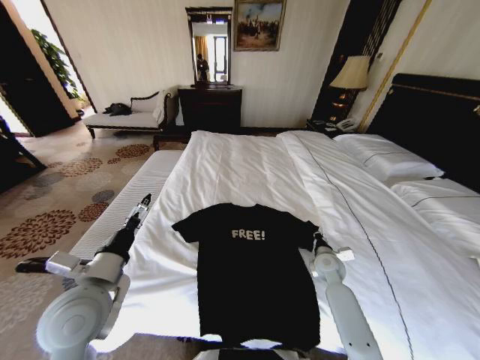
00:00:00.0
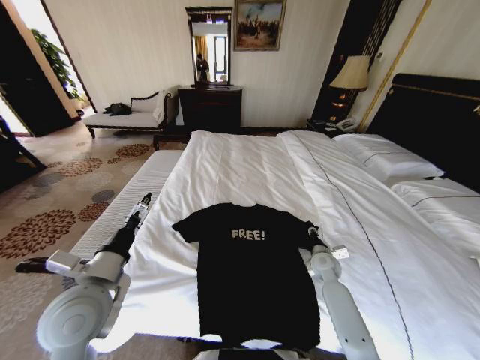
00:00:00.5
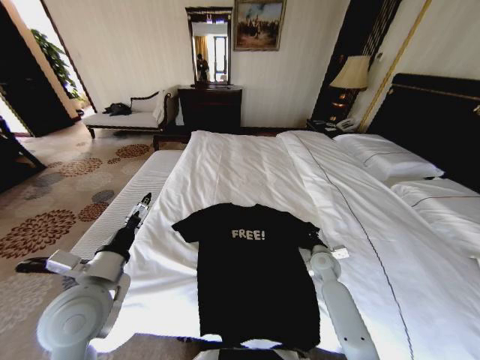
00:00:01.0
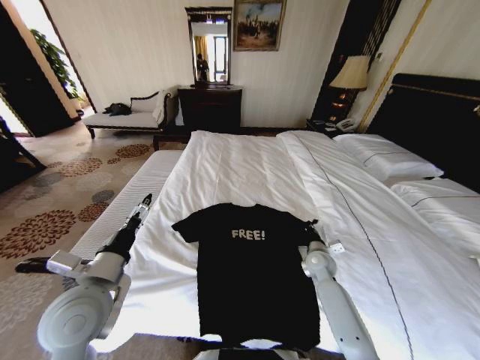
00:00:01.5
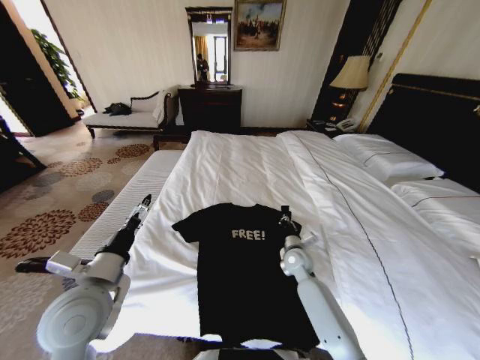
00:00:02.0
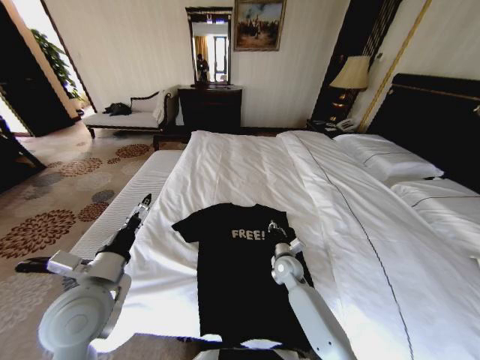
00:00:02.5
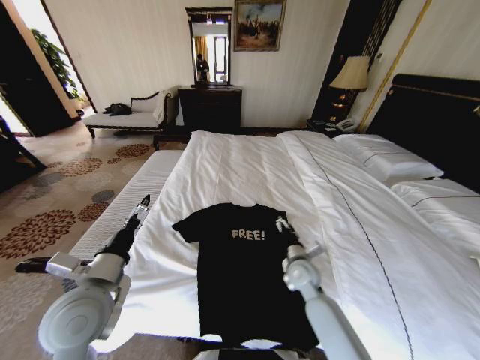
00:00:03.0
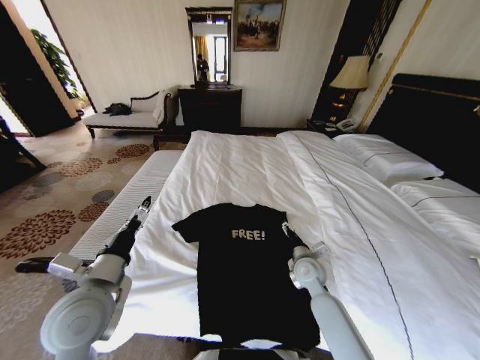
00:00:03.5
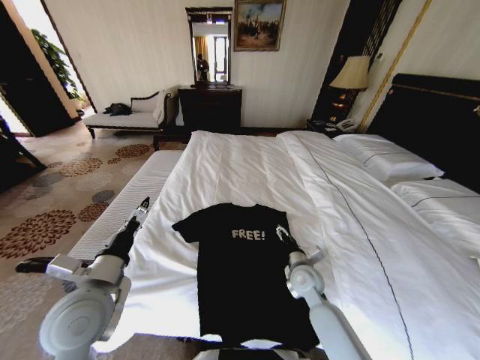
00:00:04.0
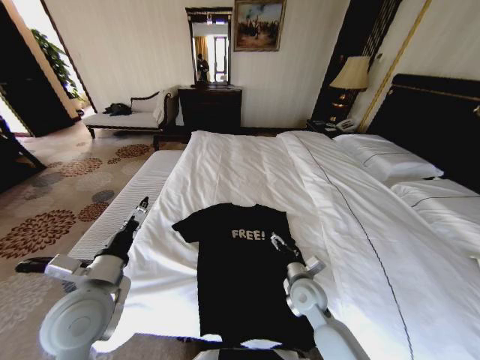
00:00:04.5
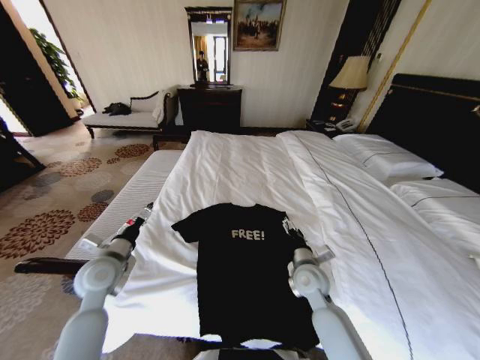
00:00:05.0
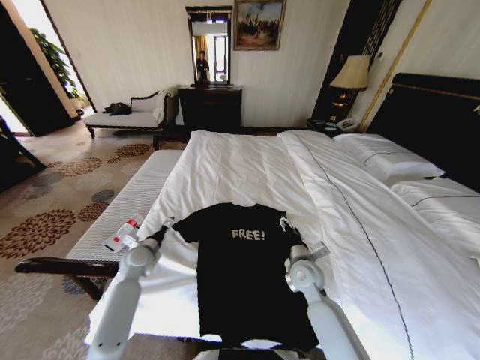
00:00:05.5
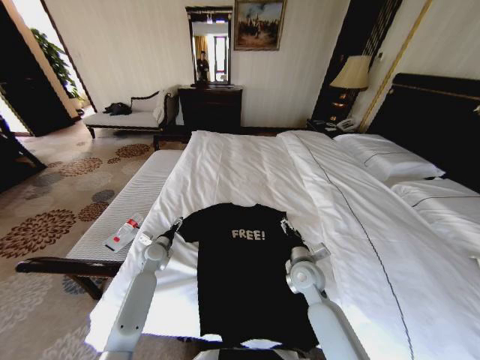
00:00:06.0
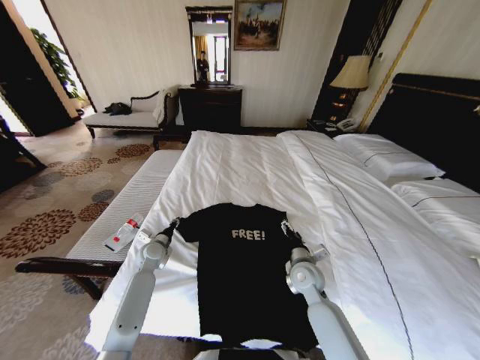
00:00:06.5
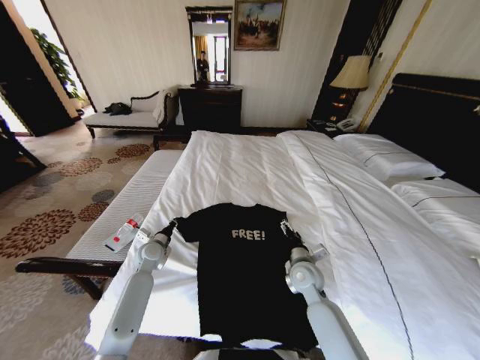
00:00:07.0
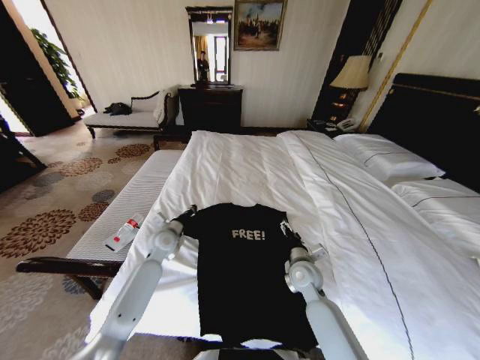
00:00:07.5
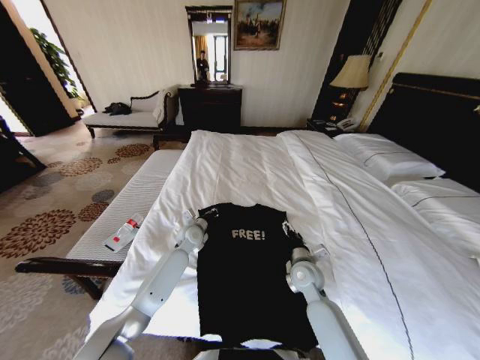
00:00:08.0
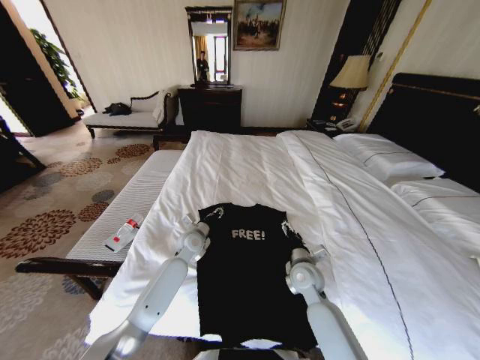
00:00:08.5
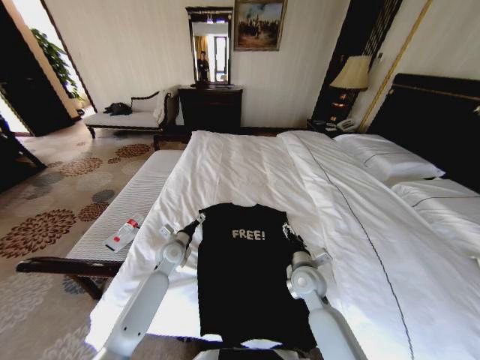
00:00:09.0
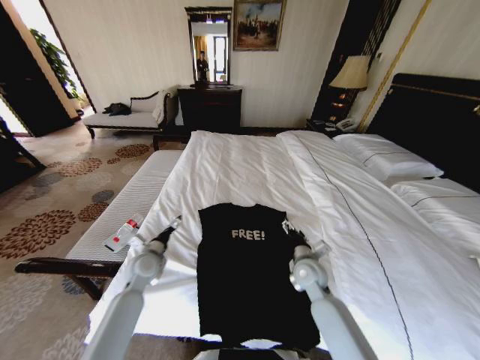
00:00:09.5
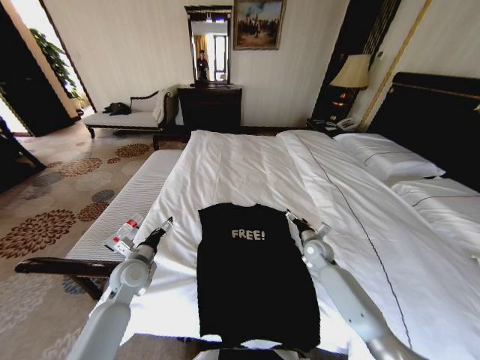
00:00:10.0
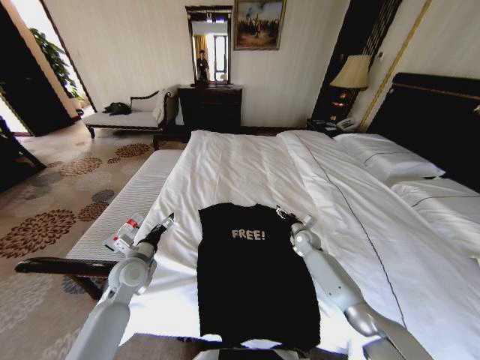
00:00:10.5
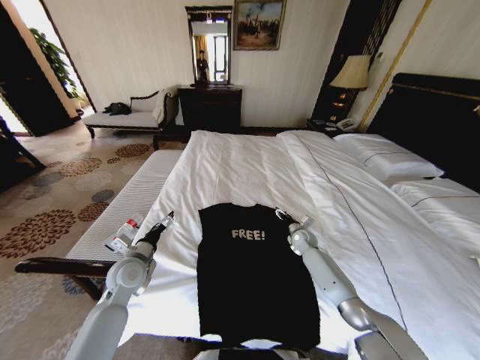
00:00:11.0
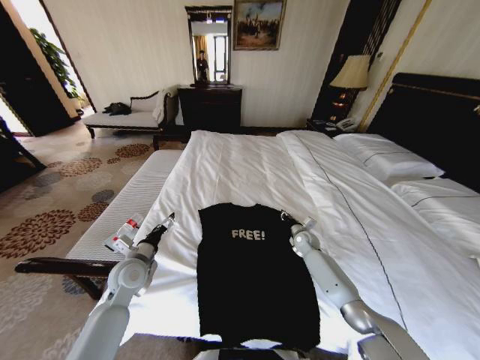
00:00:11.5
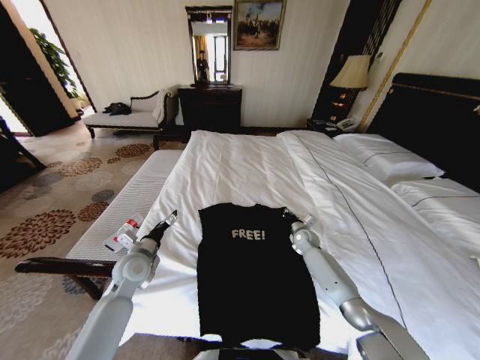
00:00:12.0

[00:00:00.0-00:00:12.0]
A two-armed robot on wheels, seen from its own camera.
Task of the whole recording: Fold the clothes on the bed.
00:00:00.0 to 00:00:02.0: The right gripper shifts some 10 cm to the left, and opens and closes again.
00:00:02.0 to 00:00:04.0: The right gripper heads backward, covering about 5 cm, and opens up.
00:00:04.0 to 00:00:06.0: The left gripper travels forward and downward by approximately 30 cm.
00:00:06.0 to 00:00:08.0: The left gripper is displaced to the right and forward by some 15 cm, and closes.
00:00:08.0 to 00:00:10.0: The left gripper shifts some 20 cm backward and to the left, and opens up; the right gripper moves forward and to the right, about 15 cm.
00:00:10.0 to 00:00:12.0: The right gripper moves forward, about 5 cm, and closes.

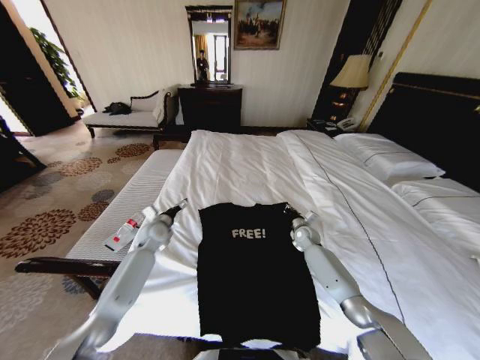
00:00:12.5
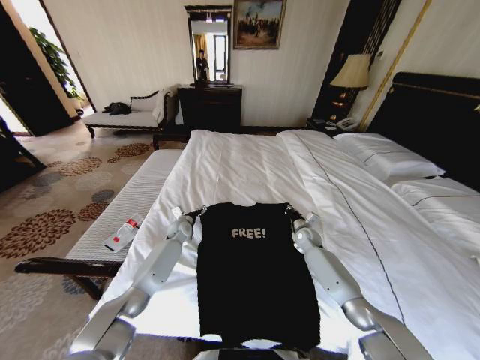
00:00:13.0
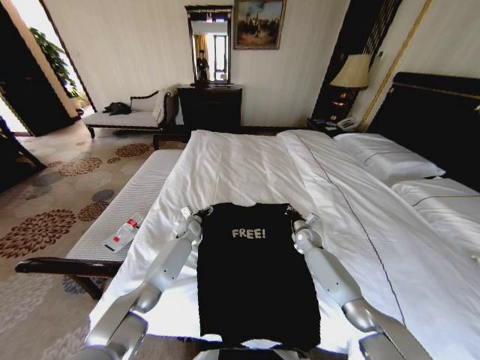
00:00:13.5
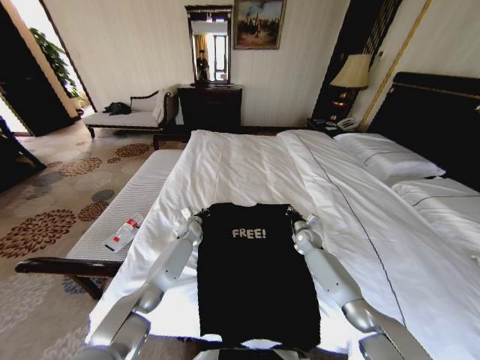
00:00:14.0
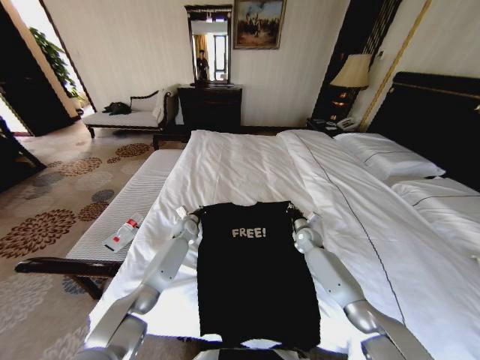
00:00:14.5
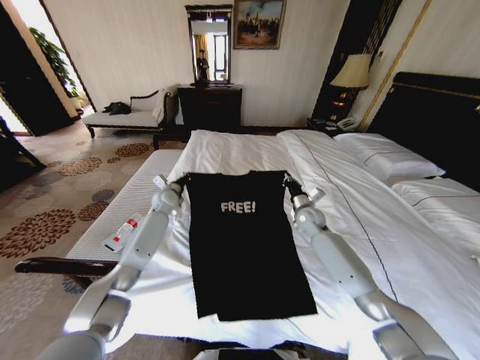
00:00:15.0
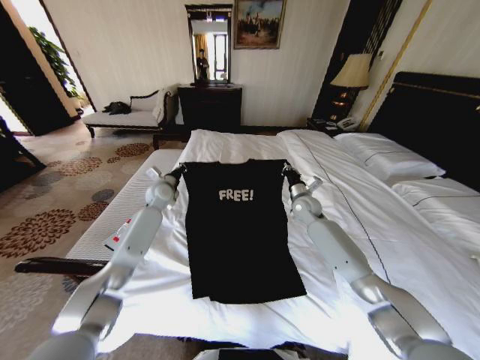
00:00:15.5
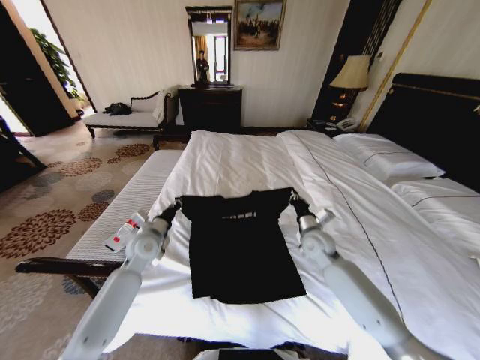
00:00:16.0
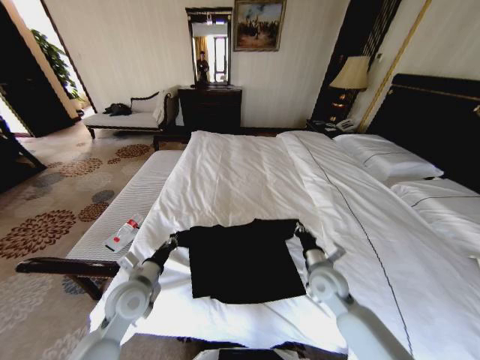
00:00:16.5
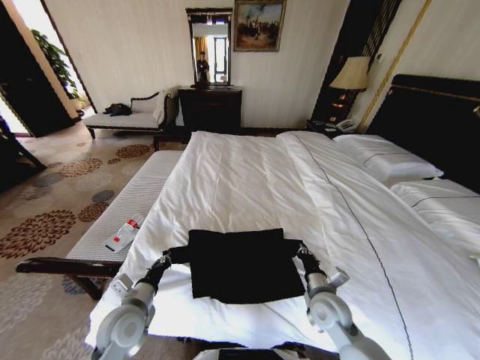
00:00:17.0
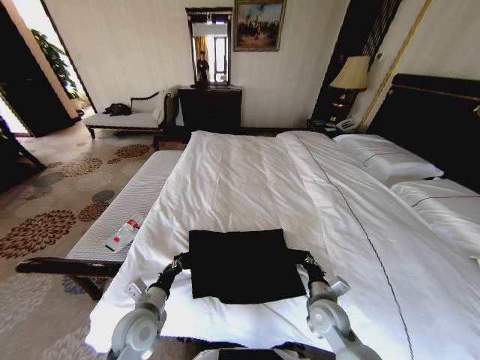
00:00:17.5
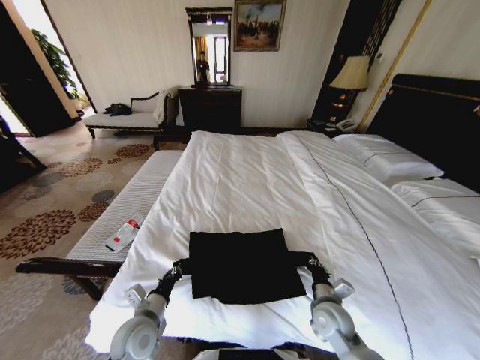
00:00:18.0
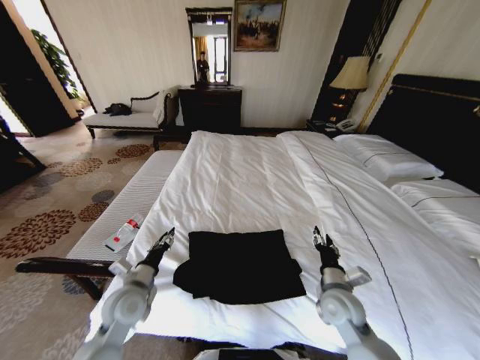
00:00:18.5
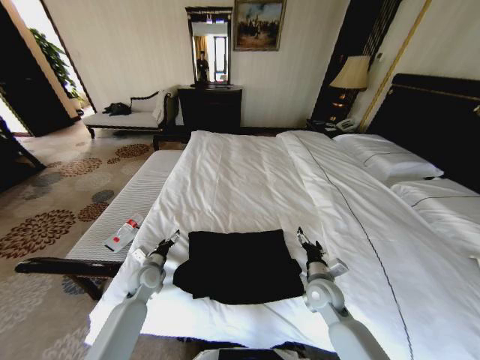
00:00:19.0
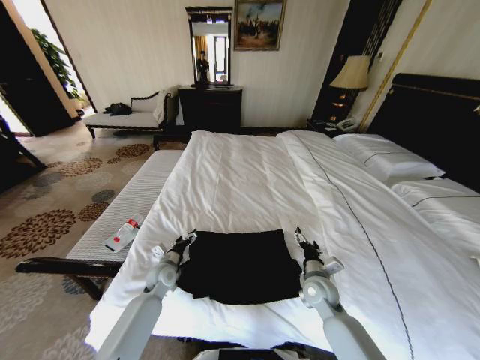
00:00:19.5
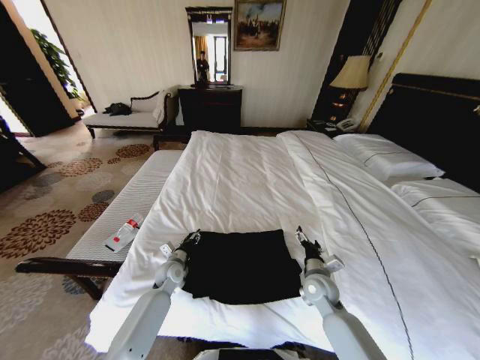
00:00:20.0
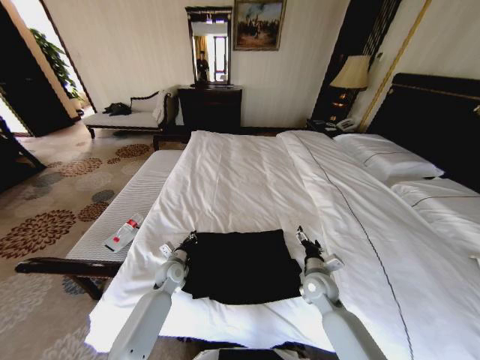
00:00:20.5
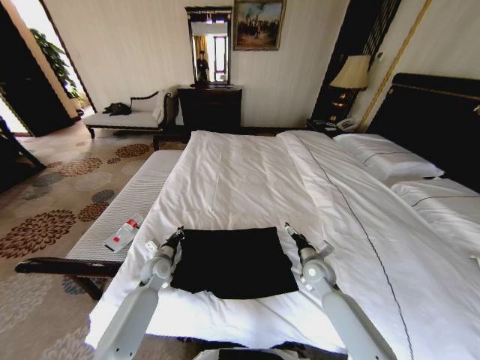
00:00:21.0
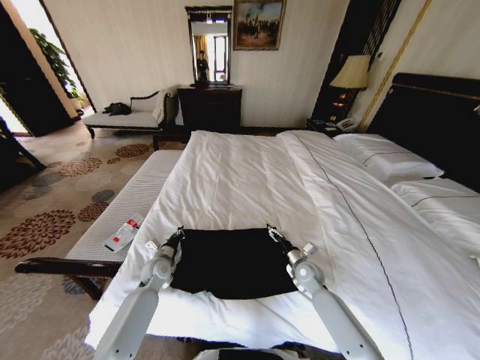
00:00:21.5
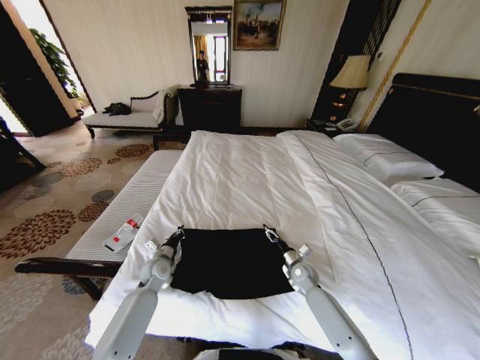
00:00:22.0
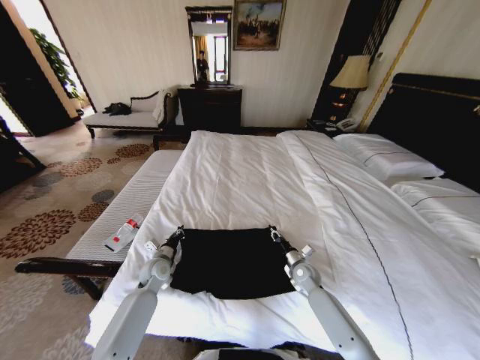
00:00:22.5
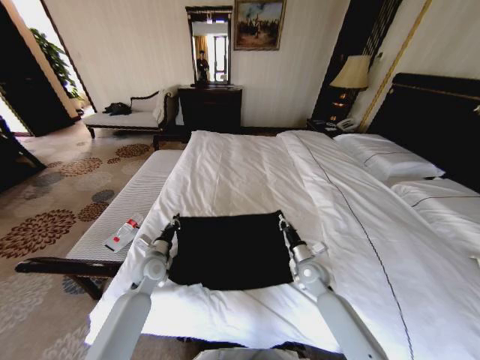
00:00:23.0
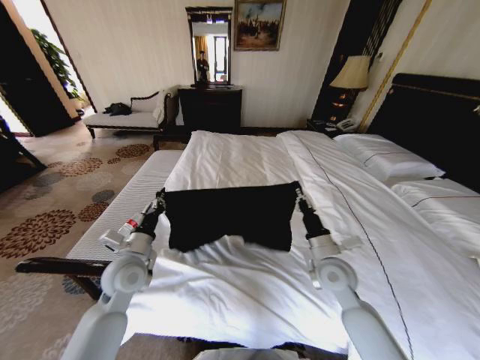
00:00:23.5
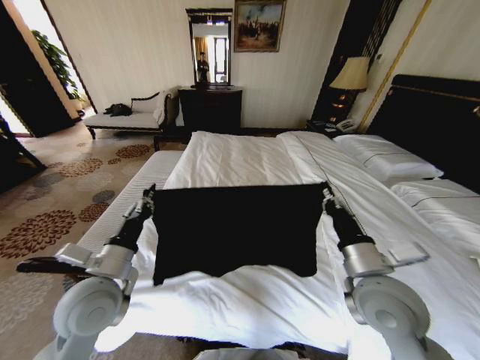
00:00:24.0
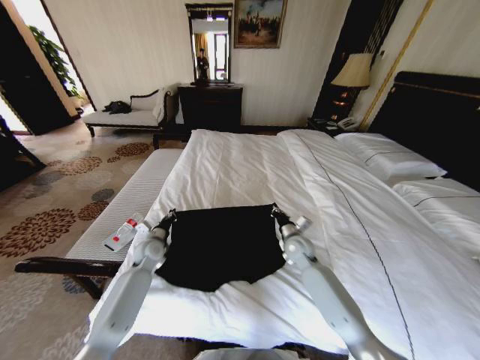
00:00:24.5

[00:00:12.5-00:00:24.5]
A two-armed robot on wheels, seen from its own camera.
Task of the whole recording: Fold the clothes on the bed.
00:00:12.5 to 00:00:14.5: The left gripper travels to the right, downward and forward by some 10 cm, and closes.
00:00:14.5 to 00:00:16.5: The grippers both shift backward by some 25 cm.
00:00:16.5 to 00:00:18.5: The left gripper opens its fingers; the right gripper travels backward by some 5 cm, and opens.
00:00:18.5 to 00:00:20.5: The left gripper heads forward, downward and to the right, covering some 20 cm, and closes, while the right gripper travels forward and downward by roughly 10 cm, and opens.
00:00:20.5 to 00:00:22.5: The right gripper shifts about 10 cm downward and forward, and closes its fingers.
00:00:22.5 to 00:00:24.5: The left gripper goes about 5 cm forward, and reaches about 20 cm upward, then returns. The right gripper heads upward, covering about 10 cm.

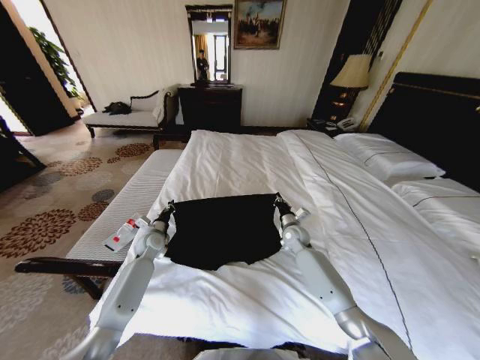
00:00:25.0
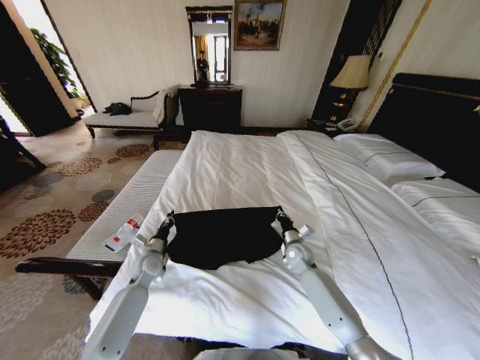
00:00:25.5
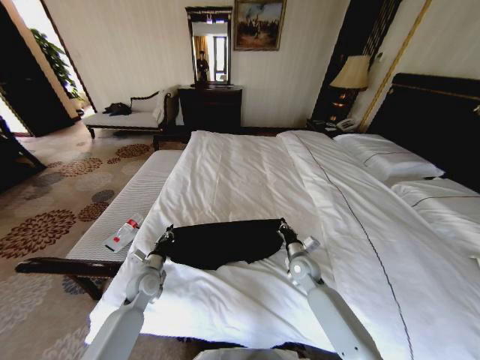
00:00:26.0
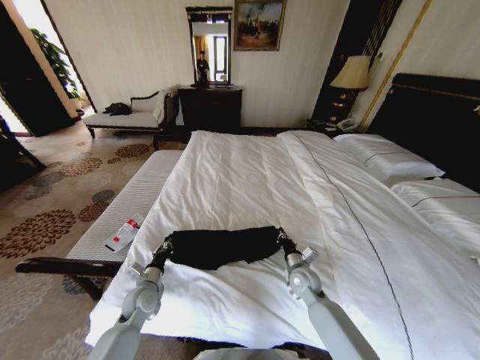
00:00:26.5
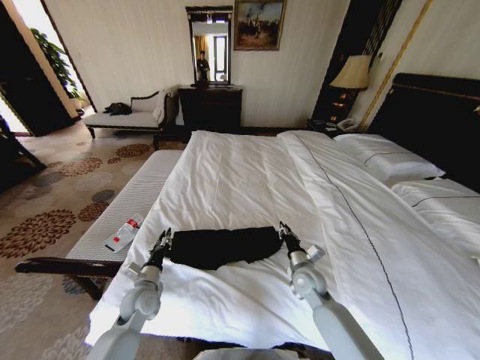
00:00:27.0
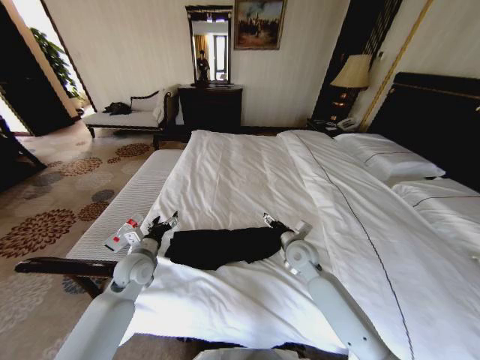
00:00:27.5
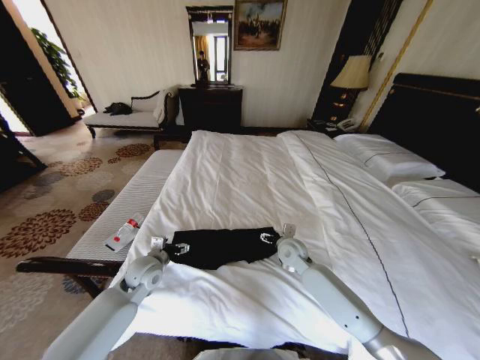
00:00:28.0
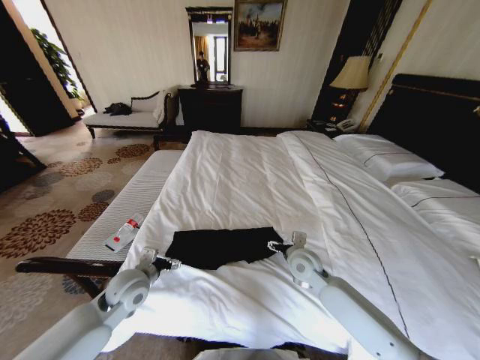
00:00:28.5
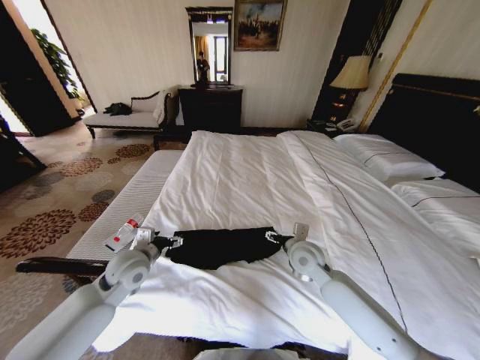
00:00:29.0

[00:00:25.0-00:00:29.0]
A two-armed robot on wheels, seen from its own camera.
Task of the whole recording: Fold the clothes on the bed.
00:00:25.0 to 00:00:27.0: Both grippers travel together backward, about 15 cm.
00:00:27.0 to 00:00:29.0: The right gripper goes roughly 10 cm upward, and opens; the left gripper is displaced upward and forward by some 15 cm, and opens up.
